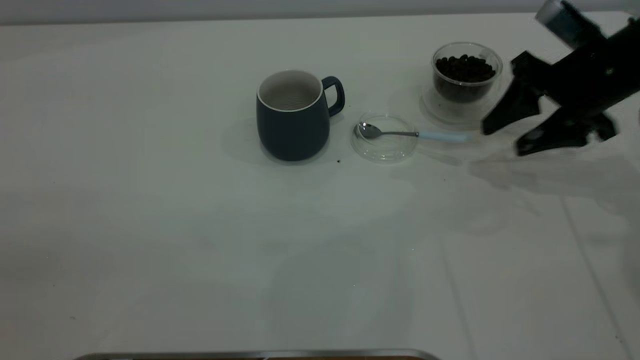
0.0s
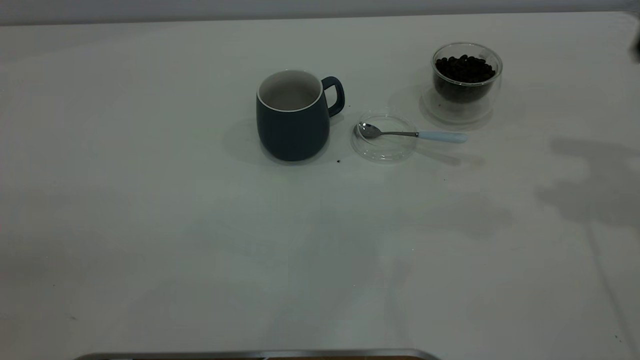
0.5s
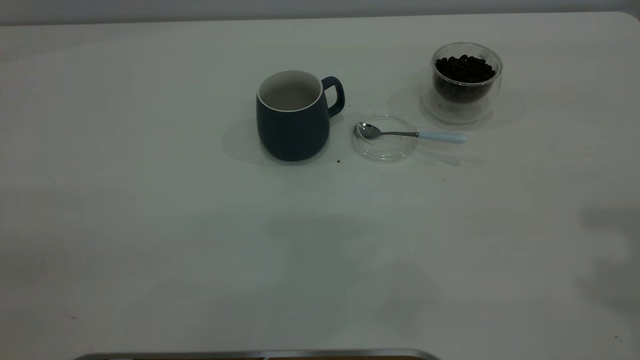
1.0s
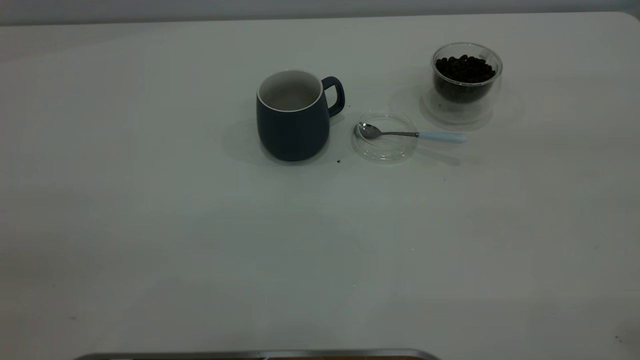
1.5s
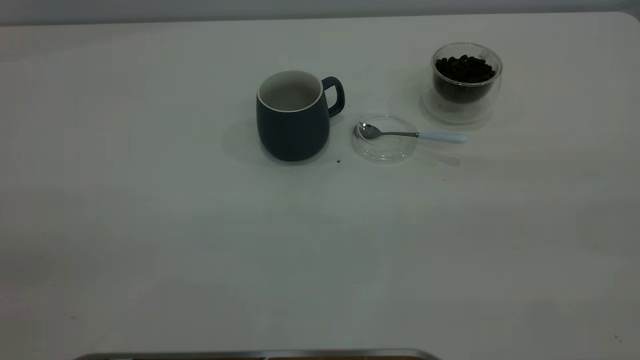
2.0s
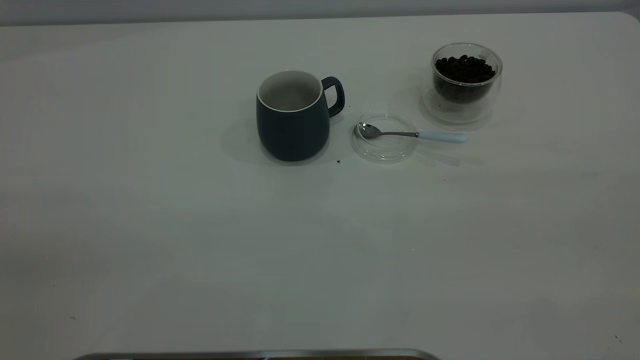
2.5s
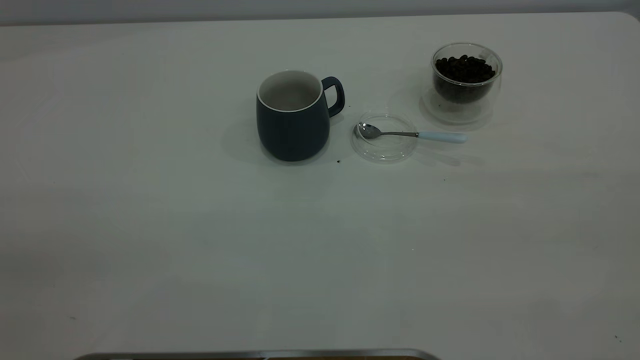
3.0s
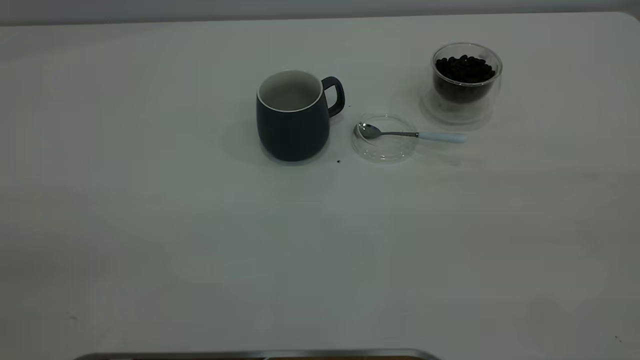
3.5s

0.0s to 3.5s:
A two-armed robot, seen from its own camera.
Task of the whole recording: the left gripper place the grey cup in the center of the table, the right gripper take the blue spoon from the cup lid and scoop out the coffee beans from the coffee cup and put them into the grey cup, the right gripper put the spoon back into the cup lid.
0.0s to 2.0s: The right gripper moves backward and upward, approximately 40 cm.
